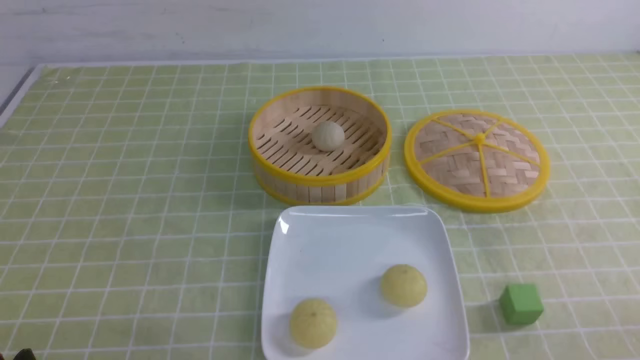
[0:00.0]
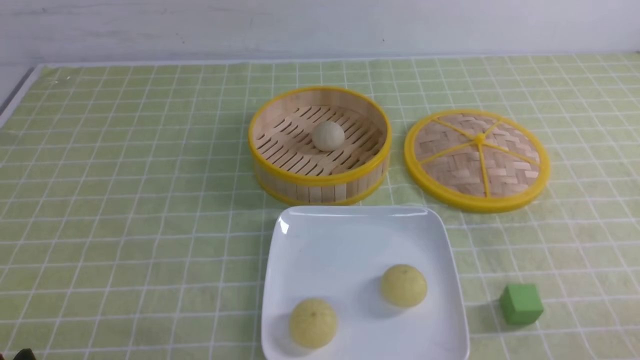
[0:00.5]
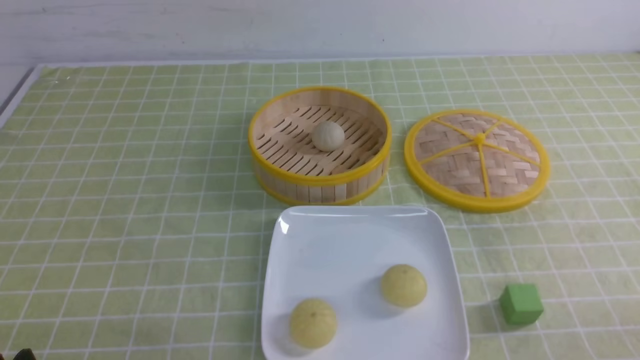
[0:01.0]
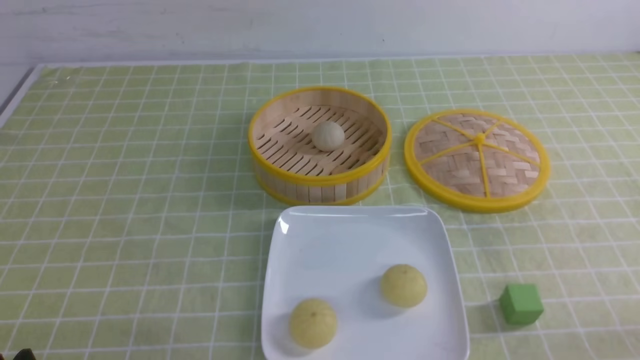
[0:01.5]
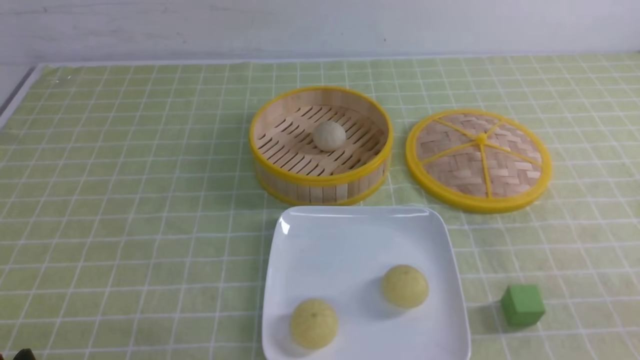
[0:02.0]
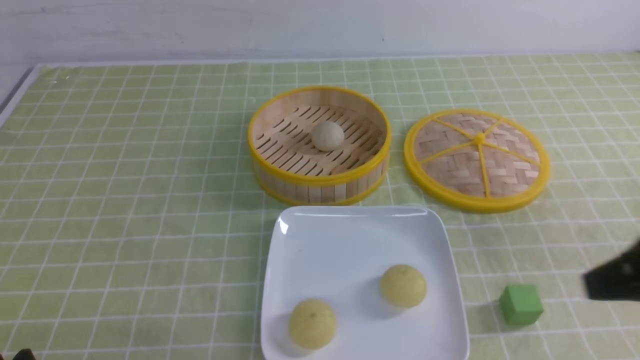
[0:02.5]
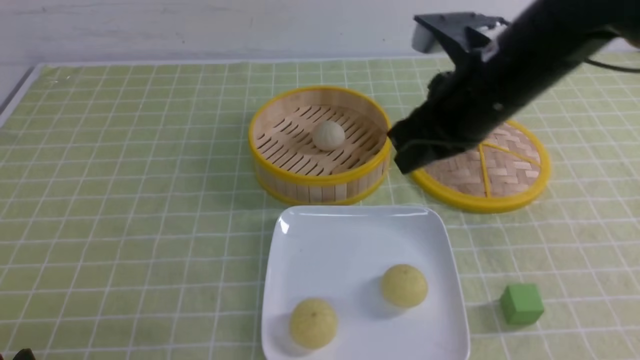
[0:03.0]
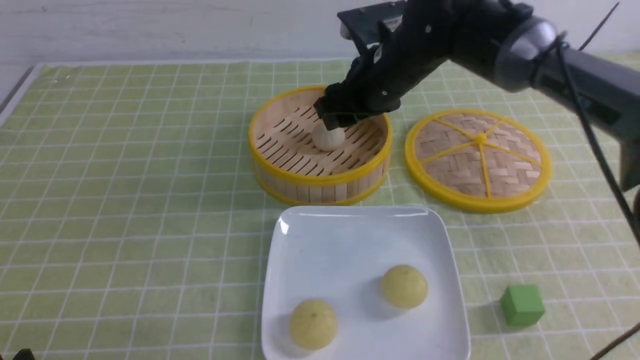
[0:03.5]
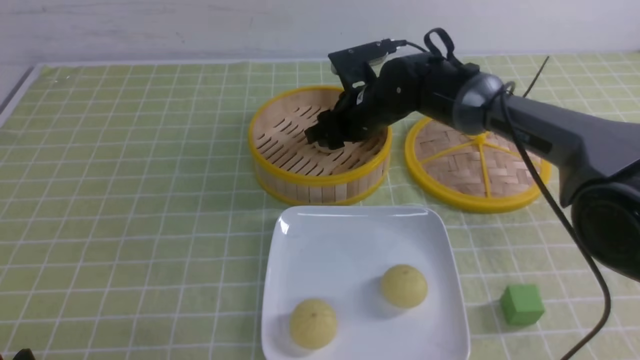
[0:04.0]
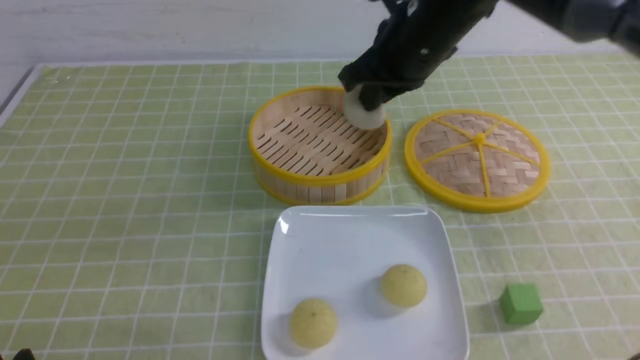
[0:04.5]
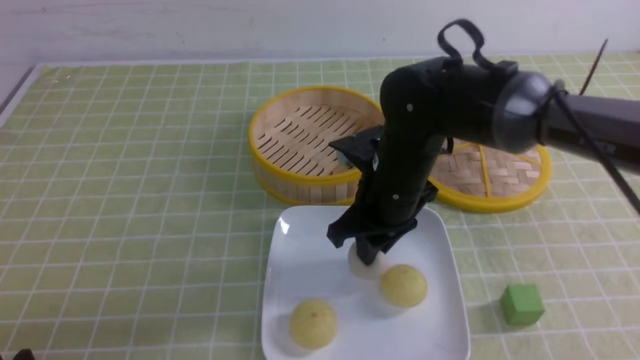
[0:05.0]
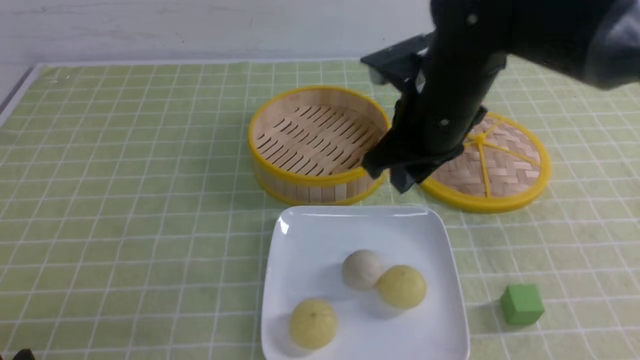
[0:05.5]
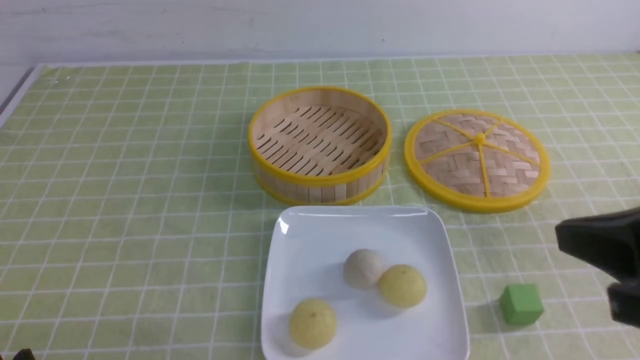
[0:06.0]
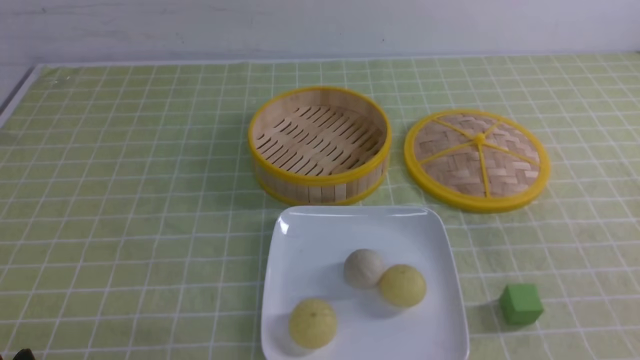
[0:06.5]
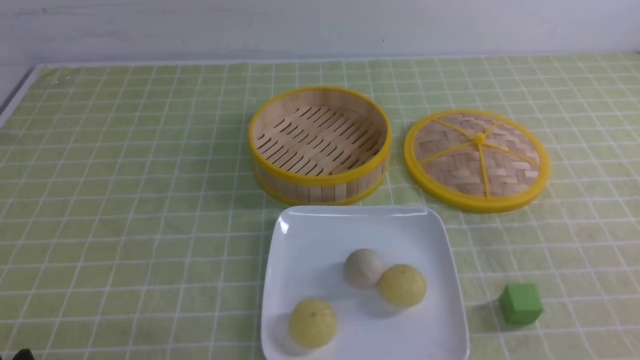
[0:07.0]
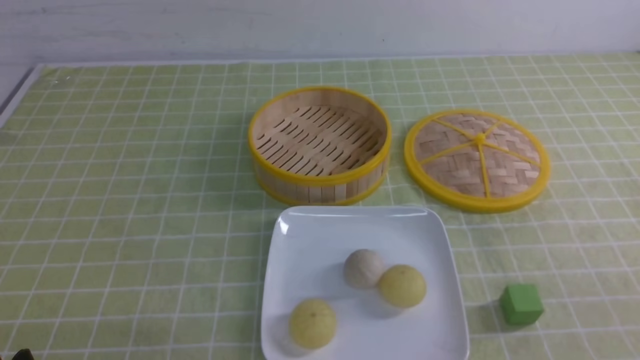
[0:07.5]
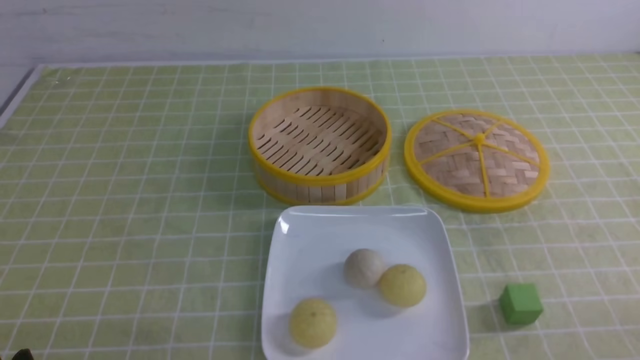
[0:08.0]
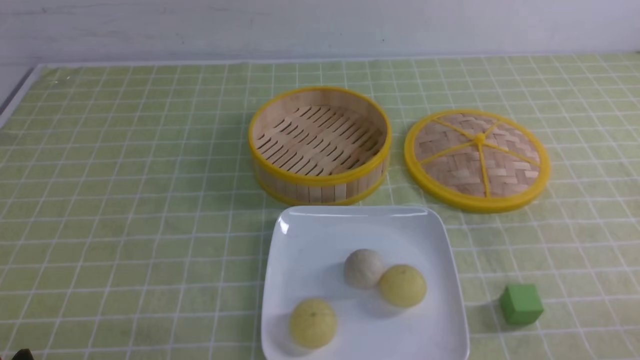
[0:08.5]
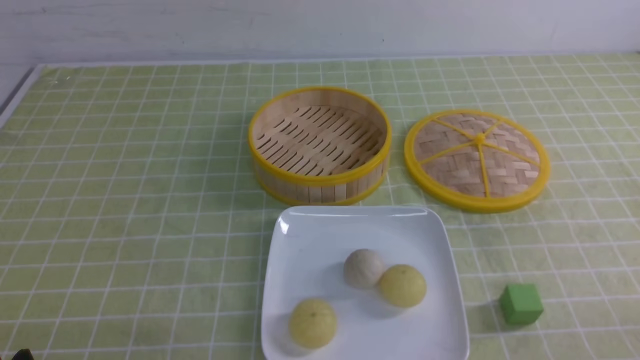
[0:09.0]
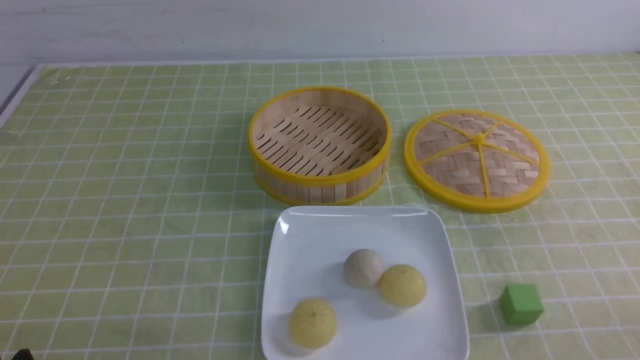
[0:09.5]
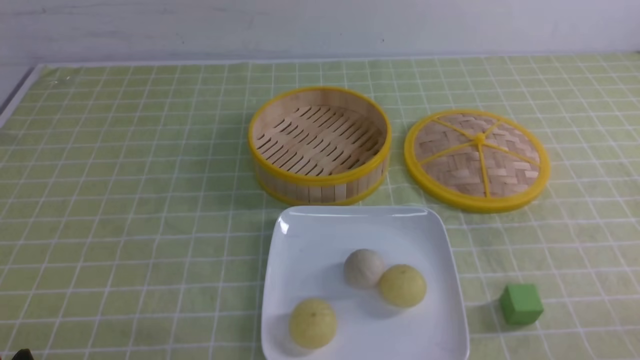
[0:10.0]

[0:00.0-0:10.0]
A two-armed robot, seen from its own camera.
Step, 0:00.0 to 0:04.0: use the right arm to grab the steamed stuffed bun that is closest to it.
Step, 0:04.5 to 0:05.0: use the right arm to put the steamed stuffed bun into the plate.
0:02.0 to 0:04.0: The right gripper heads forward and to the left, covering roughly 50 cm, and opens its fingers.
0:04.0 to 0:06.0: The right gripper moves backward, to the right and upward, about 40 cm, and closes its fingers.
0:06.0 to 0:08.0: The right gripper travels downward, to the right and backward by some 25 cm.
0:08.0 to 0:10.0: Both grippers stay about where they are.
